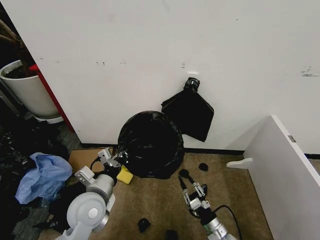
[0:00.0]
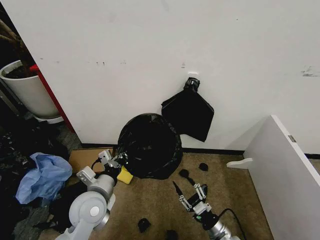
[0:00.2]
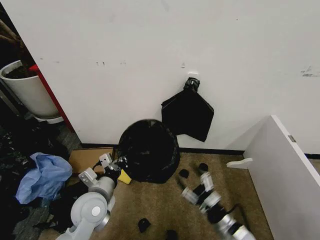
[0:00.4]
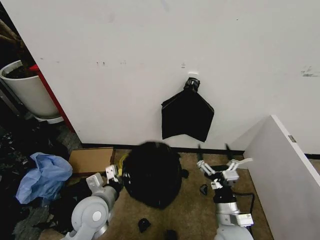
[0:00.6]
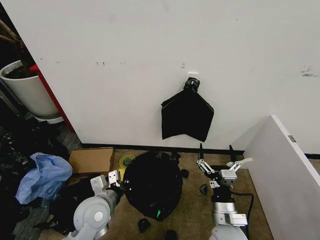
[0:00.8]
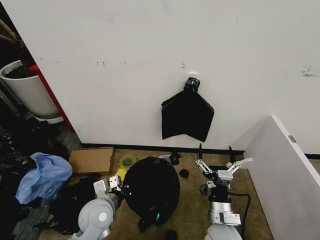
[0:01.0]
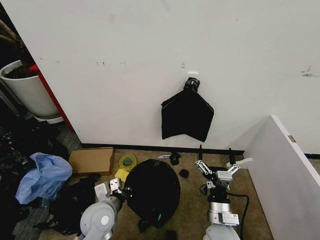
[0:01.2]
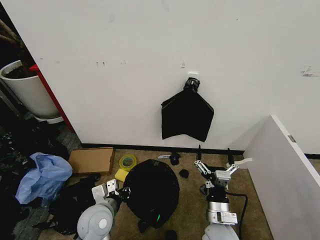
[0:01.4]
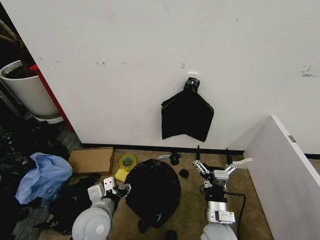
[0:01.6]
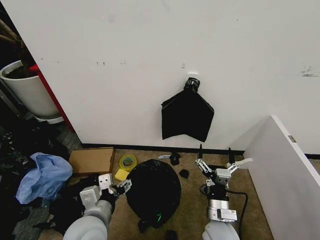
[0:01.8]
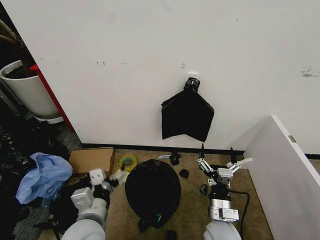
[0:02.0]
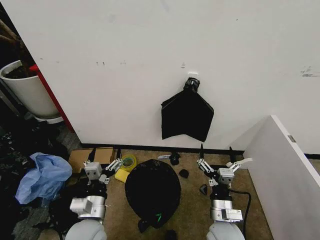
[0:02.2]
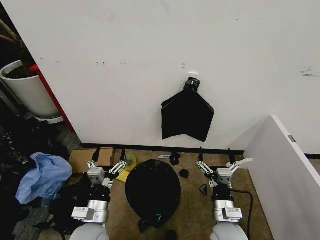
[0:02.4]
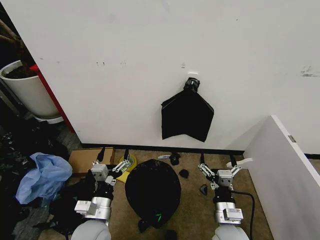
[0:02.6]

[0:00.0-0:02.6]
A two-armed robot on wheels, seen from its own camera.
Task of the whole recording: Place the garbage bag over the trash bin.
0:00.0 to 0:01.2: The right gripper travels upward and to the left by some 15 cm, and opens its fingers; the left gripper moves downward, approximately 5 cm.
0:01.2 to 0:02.6: The left gripper travels upward and back again, about 10 cm each way, and opens its fingers.

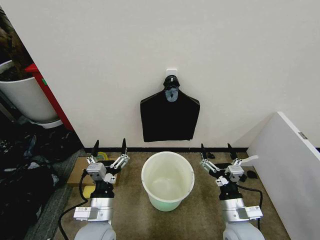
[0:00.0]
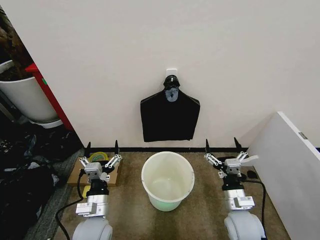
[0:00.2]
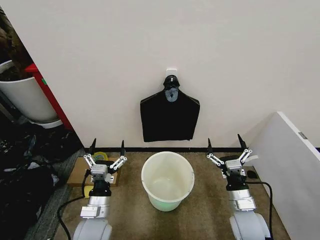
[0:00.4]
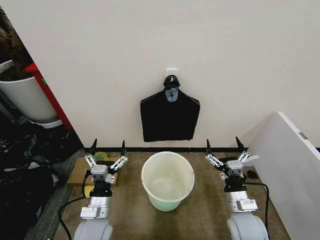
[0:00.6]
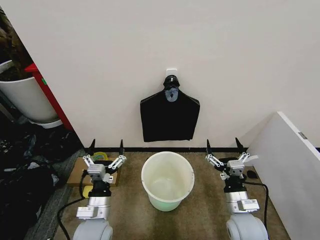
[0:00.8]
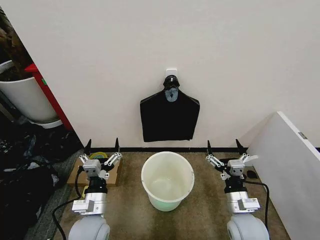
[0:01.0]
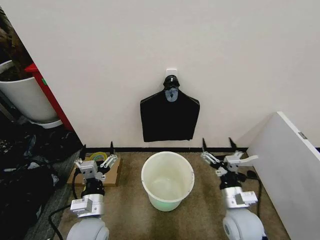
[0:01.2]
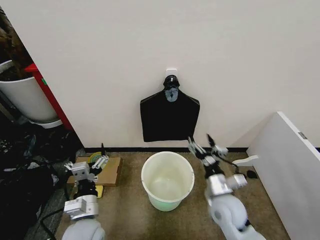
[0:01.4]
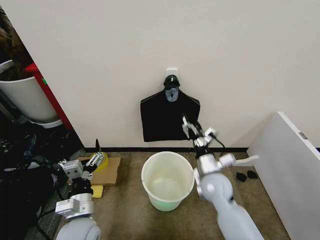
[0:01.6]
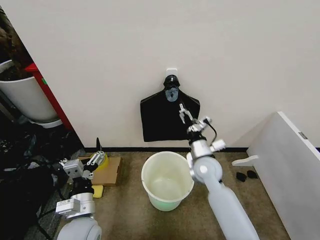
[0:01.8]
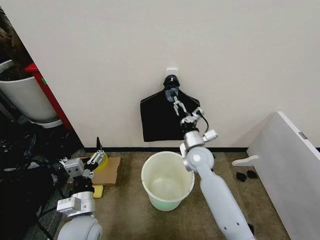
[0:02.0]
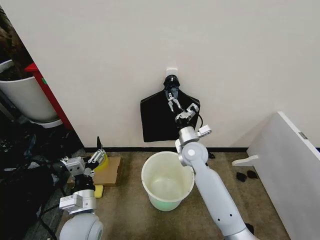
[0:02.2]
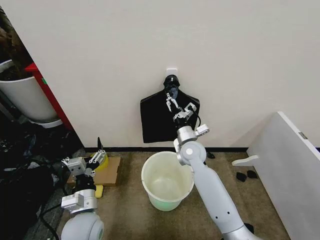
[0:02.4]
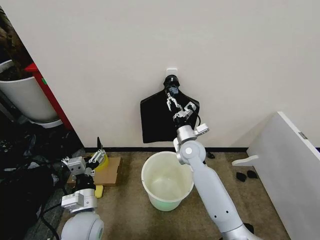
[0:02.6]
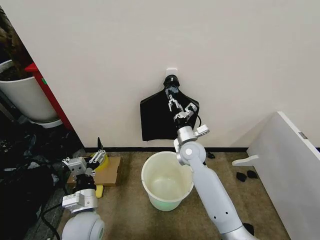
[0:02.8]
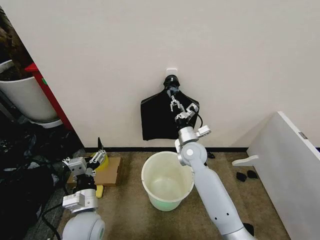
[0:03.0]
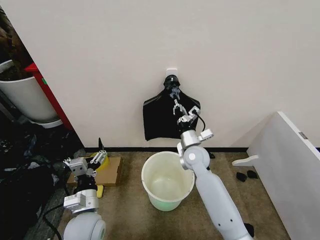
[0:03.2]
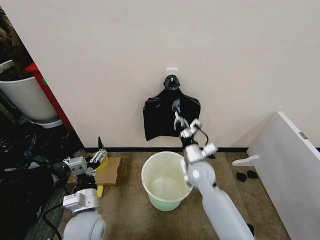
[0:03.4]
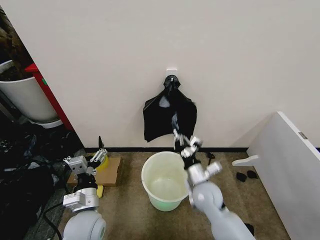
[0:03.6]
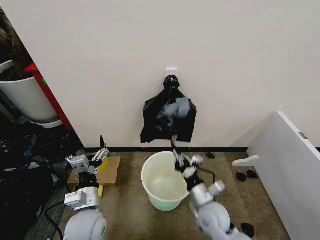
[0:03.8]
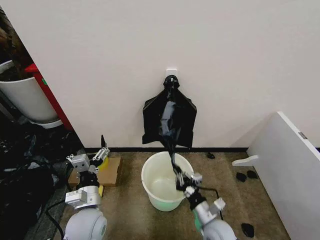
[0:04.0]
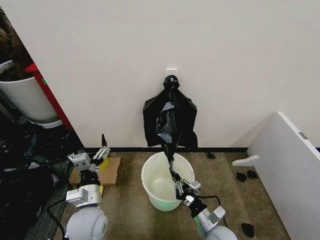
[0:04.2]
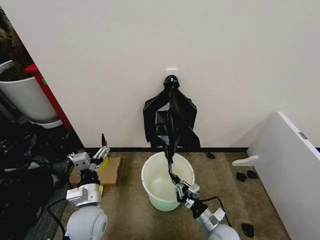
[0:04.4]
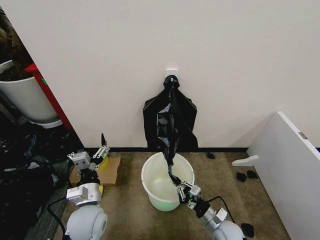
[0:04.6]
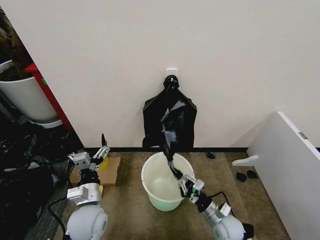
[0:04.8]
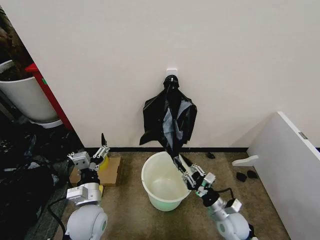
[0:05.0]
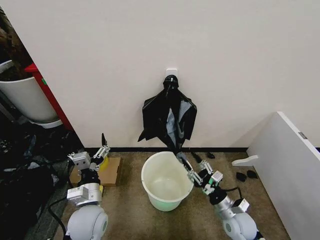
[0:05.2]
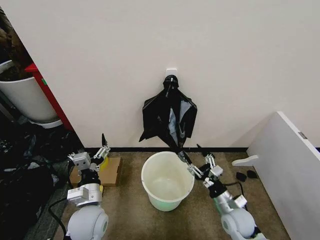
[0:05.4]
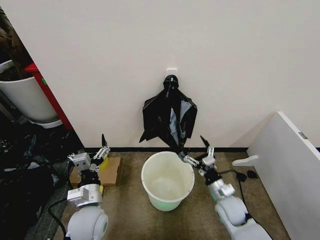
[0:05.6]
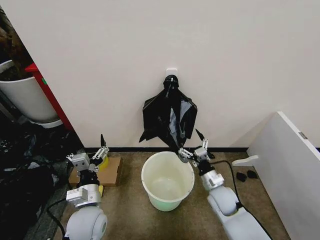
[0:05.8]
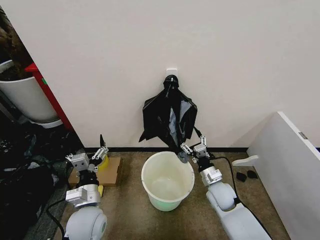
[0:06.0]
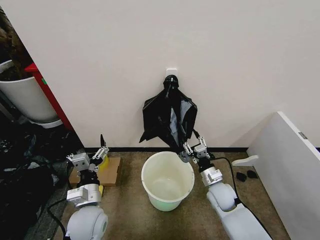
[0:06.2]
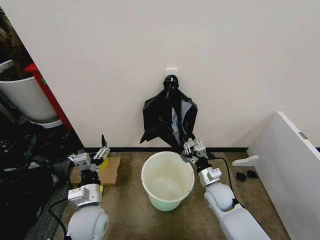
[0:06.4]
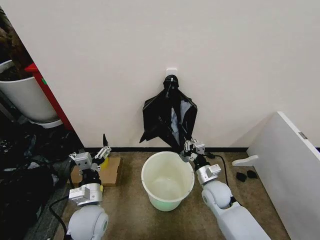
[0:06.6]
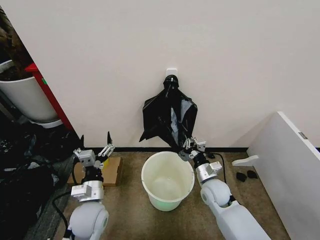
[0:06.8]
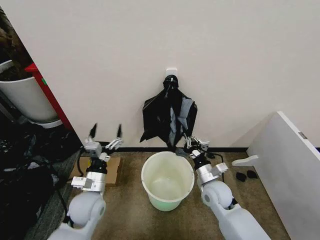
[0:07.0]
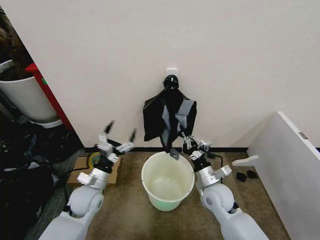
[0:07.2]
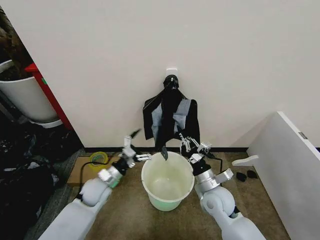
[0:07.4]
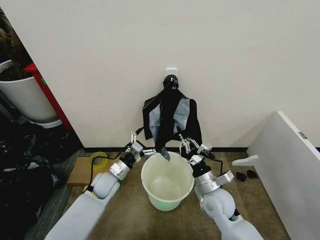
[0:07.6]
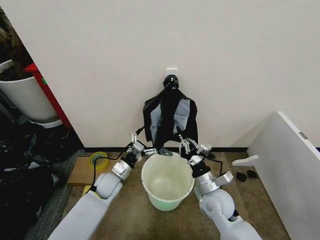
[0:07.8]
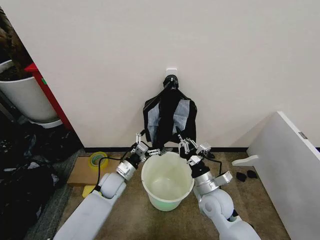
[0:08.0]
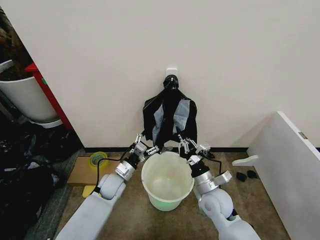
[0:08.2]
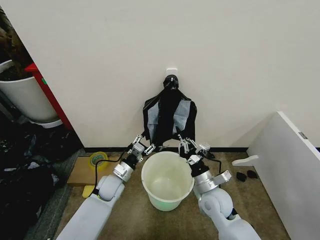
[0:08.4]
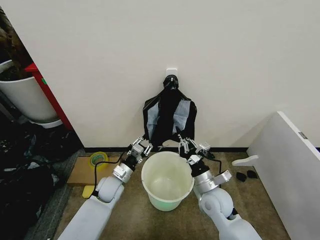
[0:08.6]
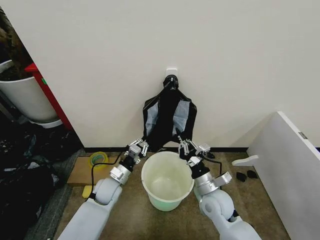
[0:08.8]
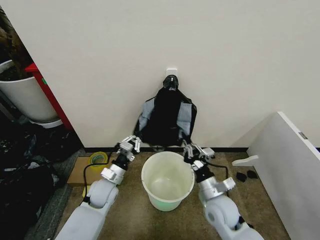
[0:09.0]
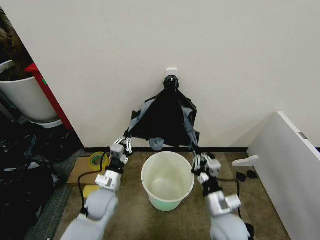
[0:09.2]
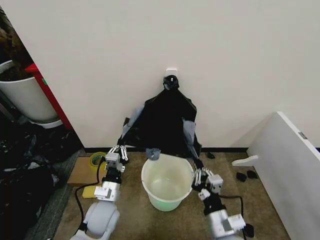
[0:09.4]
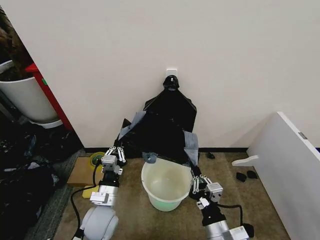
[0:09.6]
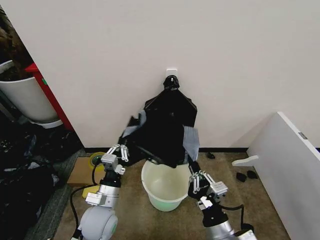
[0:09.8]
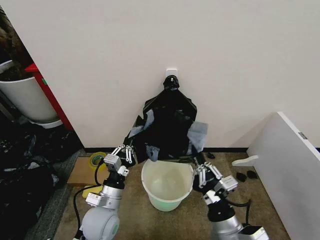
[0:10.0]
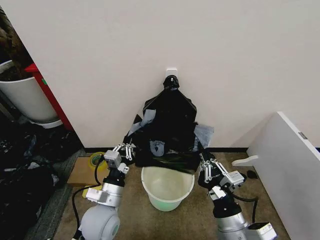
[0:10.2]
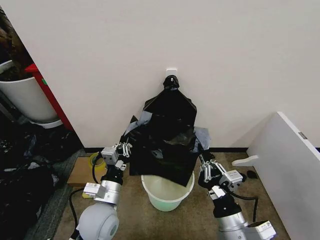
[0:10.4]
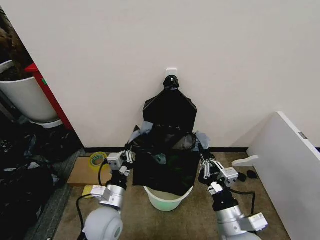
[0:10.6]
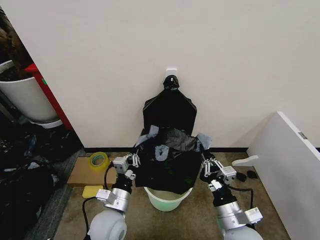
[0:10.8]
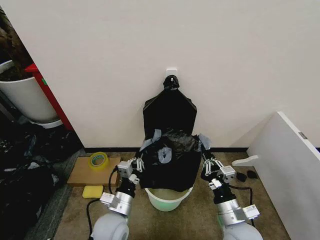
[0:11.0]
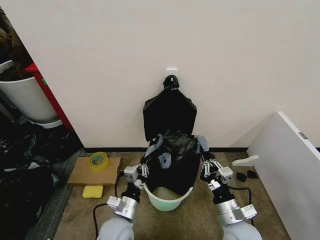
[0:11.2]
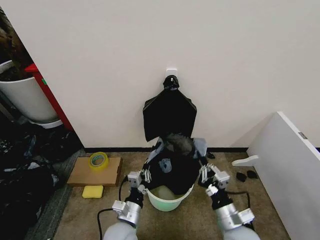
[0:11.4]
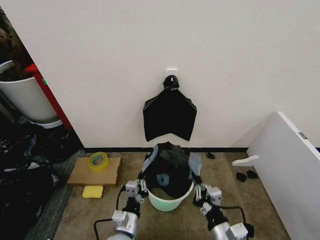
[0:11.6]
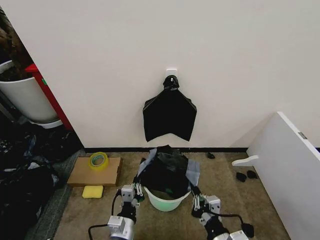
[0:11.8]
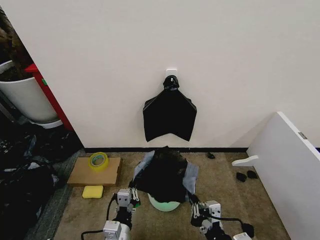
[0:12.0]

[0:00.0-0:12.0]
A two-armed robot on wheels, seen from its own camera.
Task of the whole recording: Place the garbage bag over the trash bin.
0:01.6 to 0:03.0: The right gripper shifts roughly 15 cm forward and to the left, and closes up.
0:03.0 to 0:04.4: The right gripper travels backward and downward by approximately 30 cm.
0:04.4 to 0:06.0: The right gripper travels forward and upward by some 15 cm, and opens its fingers.
0:06.0 to 0:07.6: The right gripper moves upward, some 5 cm, and closes up. The left gripper is displaced forward and downward by about 15 cm.
0:07.6 to 0:09.0: The left gripper closes.
0:09.0 to 0:10.4: The two grippers go roughly 15 cm backward and upward.
0:10.4 to 0:12.0: The right gripper heads backward, covering some 5 cm, while the left gripper travels backward and downward by roughly 10 cm.

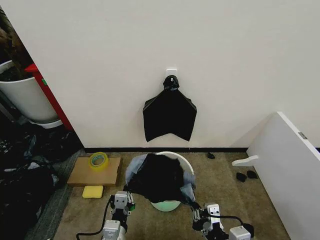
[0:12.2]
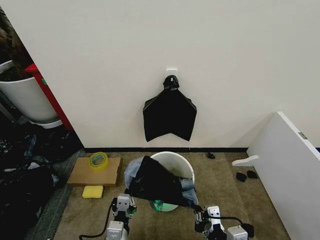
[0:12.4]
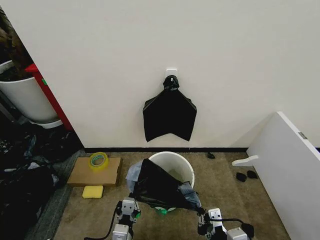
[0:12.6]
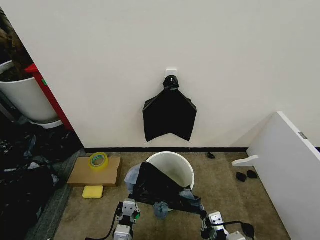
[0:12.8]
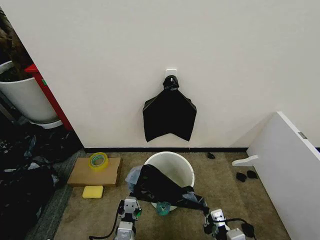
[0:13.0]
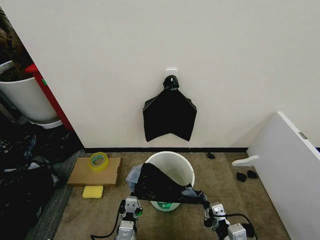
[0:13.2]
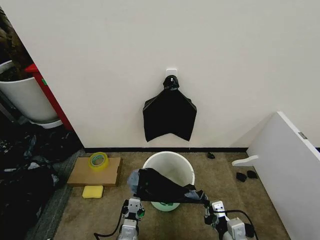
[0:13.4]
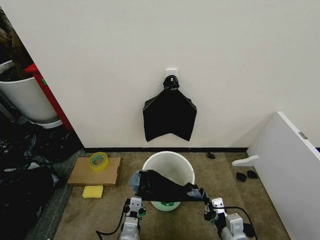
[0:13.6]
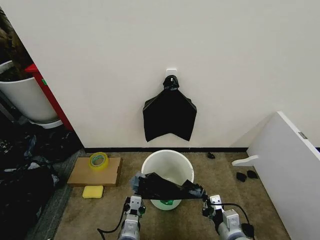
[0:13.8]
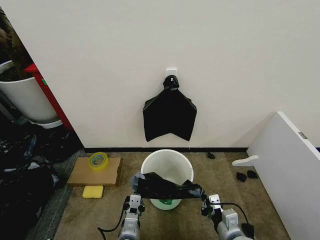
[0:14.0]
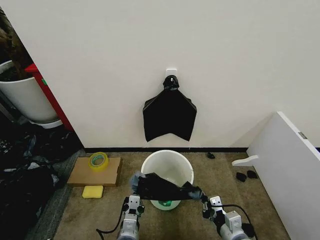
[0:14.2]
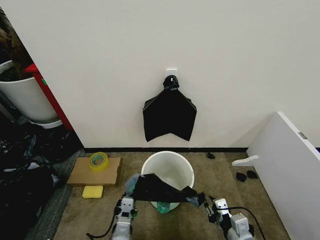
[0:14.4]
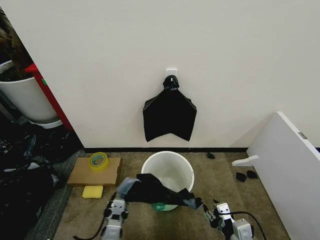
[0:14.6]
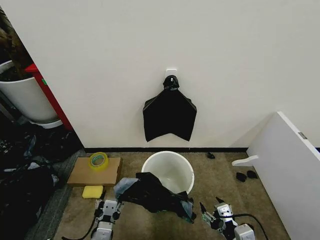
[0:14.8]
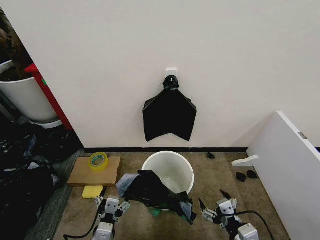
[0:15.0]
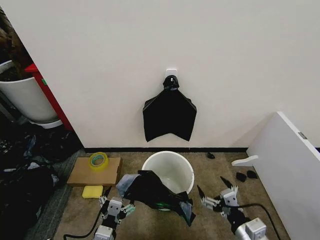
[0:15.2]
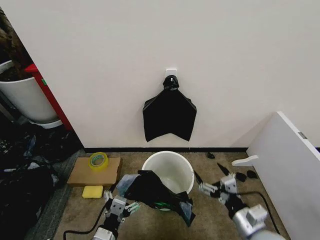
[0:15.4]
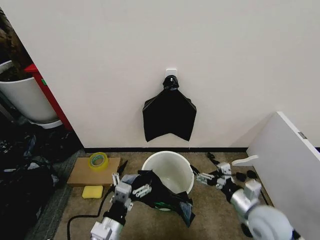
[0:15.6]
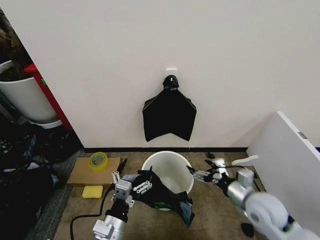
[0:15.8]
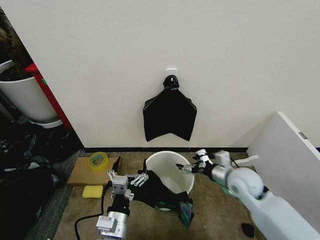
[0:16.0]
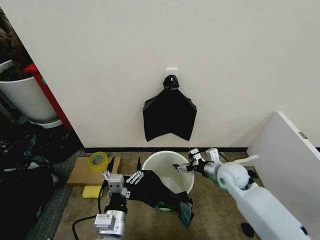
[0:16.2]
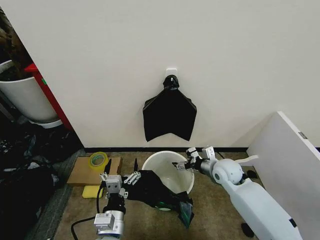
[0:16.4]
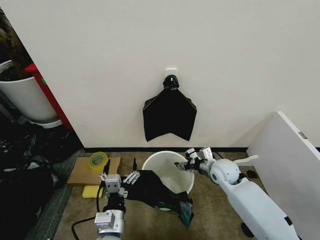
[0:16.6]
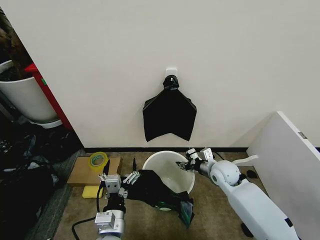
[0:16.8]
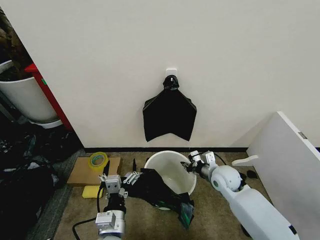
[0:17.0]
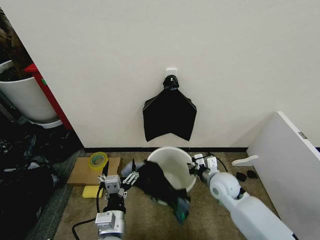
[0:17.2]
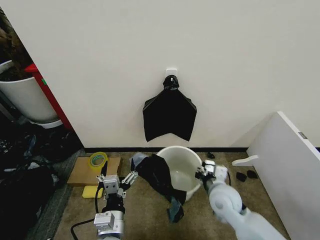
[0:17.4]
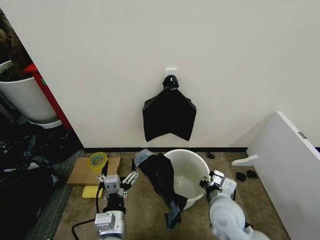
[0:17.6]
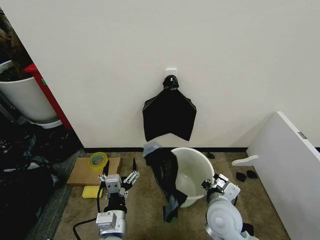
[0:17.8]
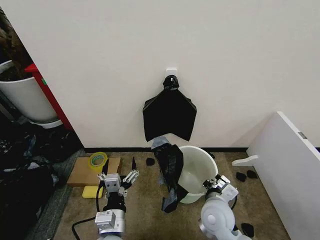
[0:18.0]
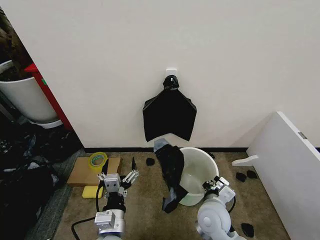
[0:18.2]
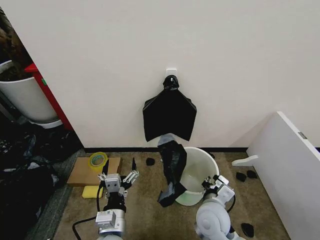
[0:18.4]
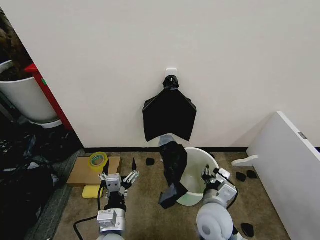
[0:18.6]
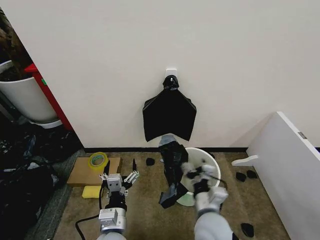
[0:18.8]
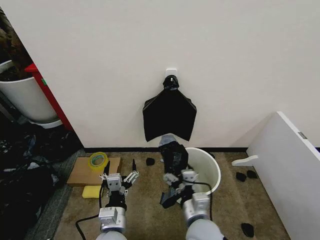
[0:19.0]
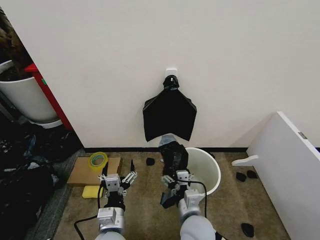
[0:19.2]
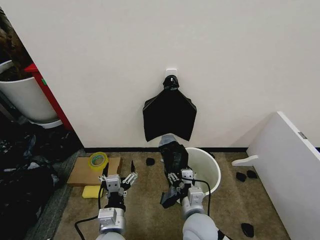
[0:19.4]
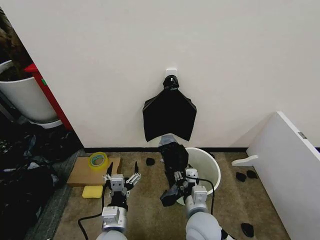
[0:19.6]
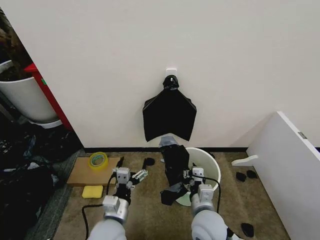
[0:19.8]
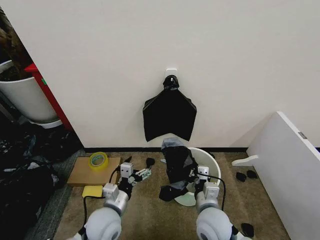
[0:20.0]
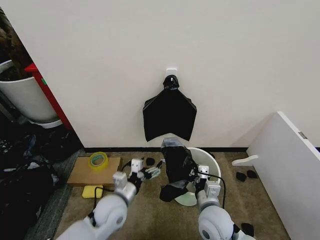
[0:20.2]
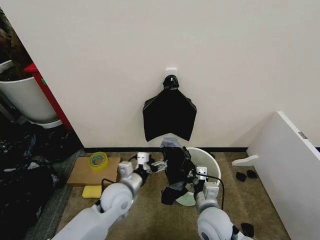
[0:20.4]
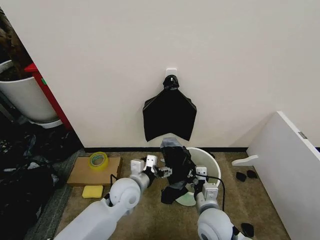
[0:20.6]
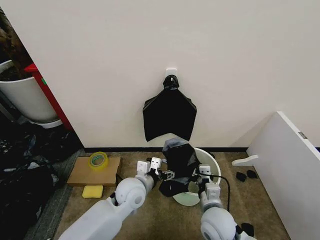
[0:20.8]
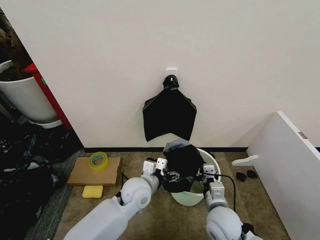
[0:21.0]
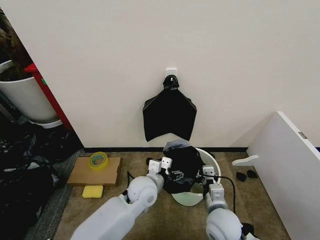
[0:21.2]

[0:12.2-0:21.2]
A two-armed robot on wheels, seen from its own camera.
Task of the whole recording: Place the garbage bag over the trash bin.
0:12.2 to 0:13.8: The right gripper goes roughly 10 cm downward and forward. Meanwhile the left gripper moves downward, about 5 cm.
0:13.8 to 0:15.2: The right gripper heads upward, covering approximately 5 cm, and opens up. The left gripper is displaced to the left and upward by about 10 cm, and opens its fingers.
0:15.2 to 0:16.6: The right gripper moves forward, roughly 25 cm. Meanwhile the left gripper moves some 5 cm.
0:16.6 to 0:18.2: The right gripper heads backward and to the left, covering some 15 cm, and closes up.
0:18.2 to 0:19.8: The right gripper opens, then closes once more, while the left gripper moves roughly 5 cm.
0:19.8 to 0:21.2: The right gripper goes some 5 cm to the right. Meanwhile the left gripper goes about 15 cm forward and to the right.
